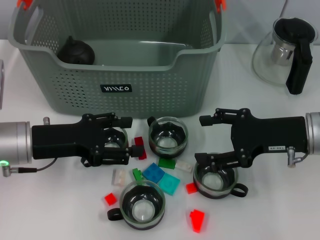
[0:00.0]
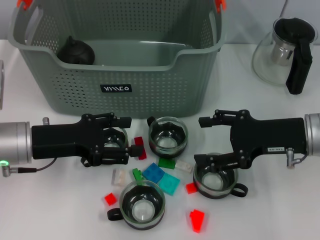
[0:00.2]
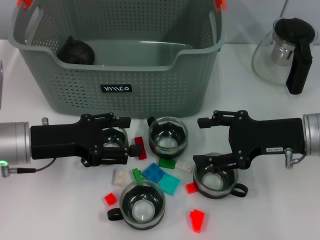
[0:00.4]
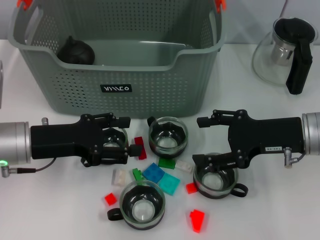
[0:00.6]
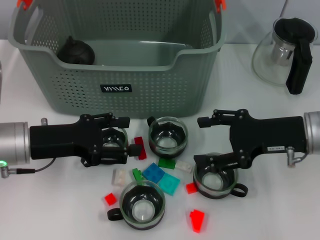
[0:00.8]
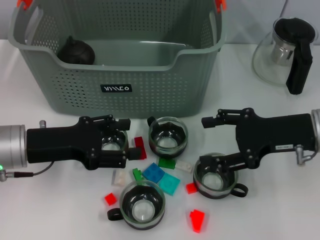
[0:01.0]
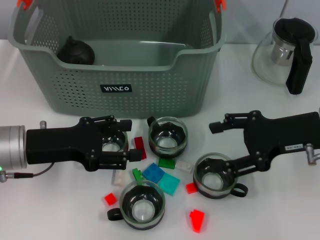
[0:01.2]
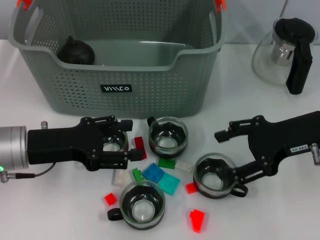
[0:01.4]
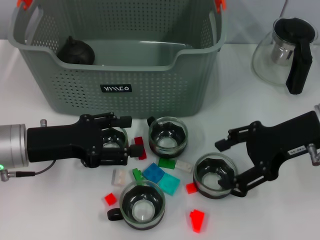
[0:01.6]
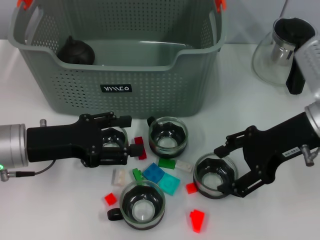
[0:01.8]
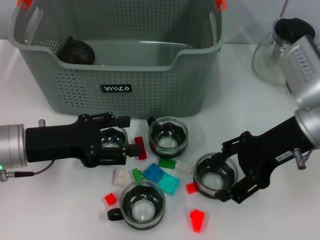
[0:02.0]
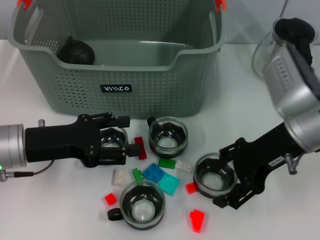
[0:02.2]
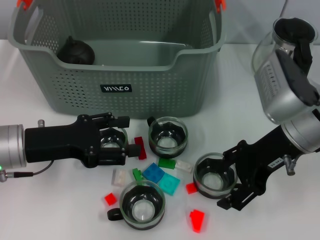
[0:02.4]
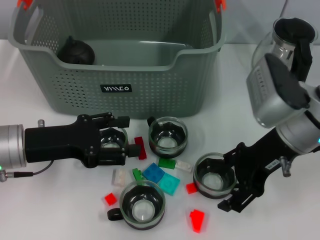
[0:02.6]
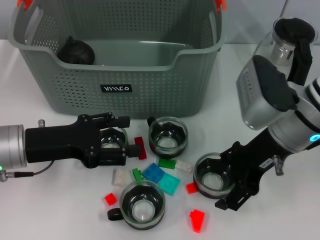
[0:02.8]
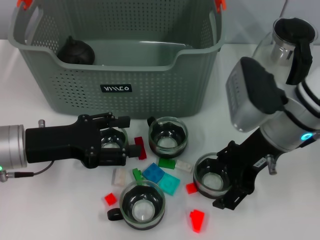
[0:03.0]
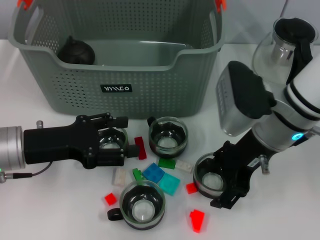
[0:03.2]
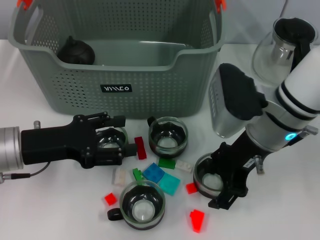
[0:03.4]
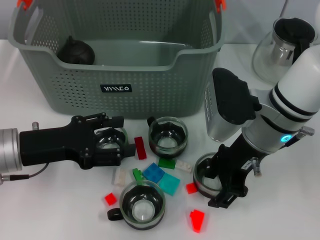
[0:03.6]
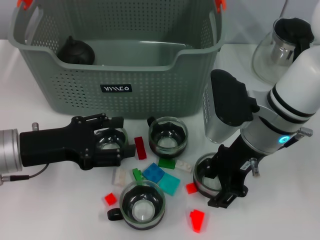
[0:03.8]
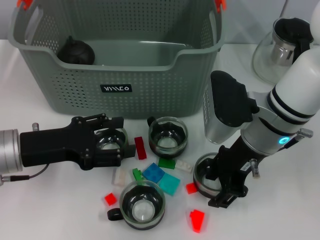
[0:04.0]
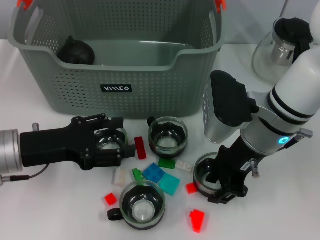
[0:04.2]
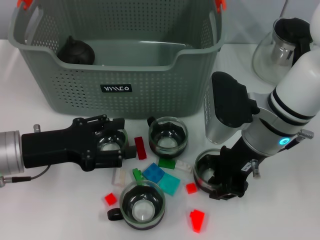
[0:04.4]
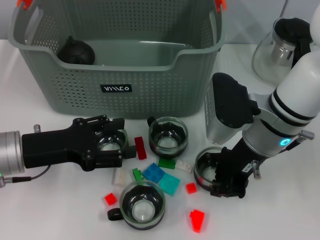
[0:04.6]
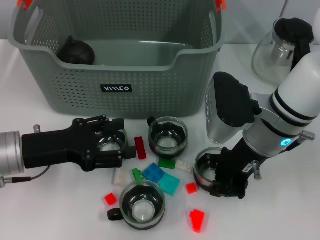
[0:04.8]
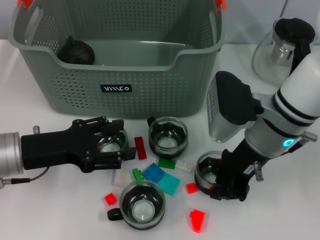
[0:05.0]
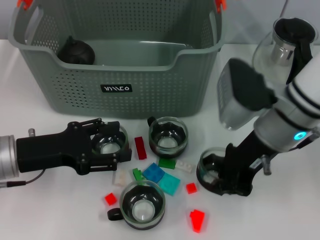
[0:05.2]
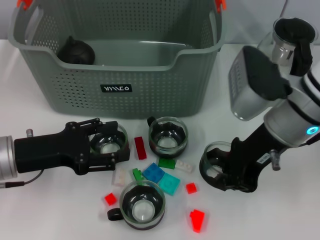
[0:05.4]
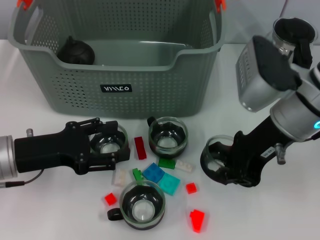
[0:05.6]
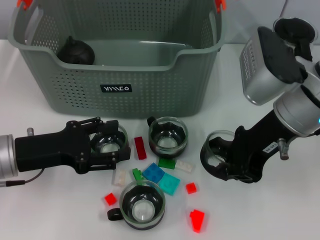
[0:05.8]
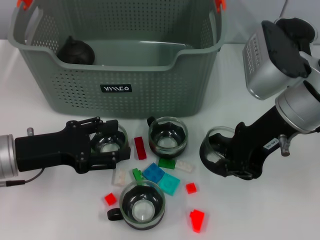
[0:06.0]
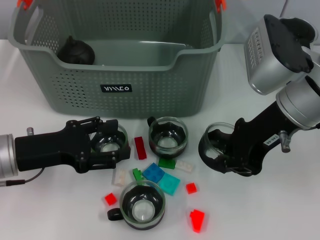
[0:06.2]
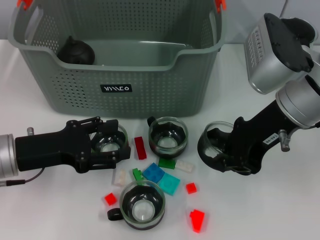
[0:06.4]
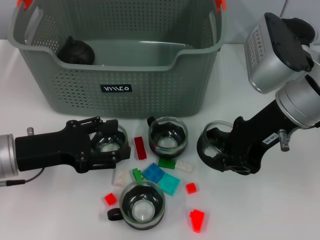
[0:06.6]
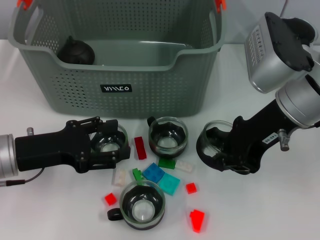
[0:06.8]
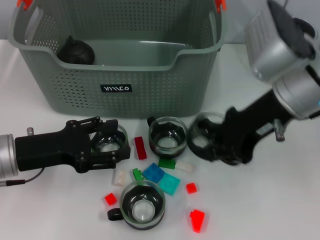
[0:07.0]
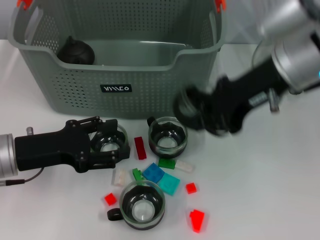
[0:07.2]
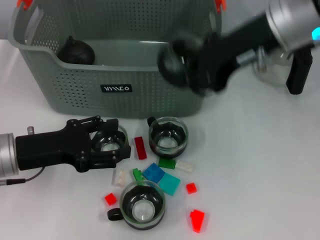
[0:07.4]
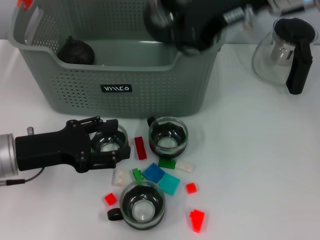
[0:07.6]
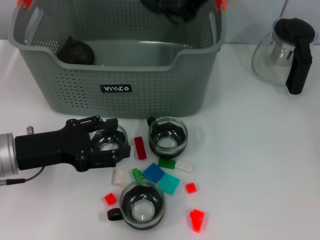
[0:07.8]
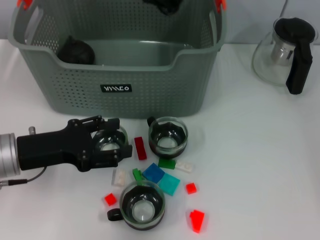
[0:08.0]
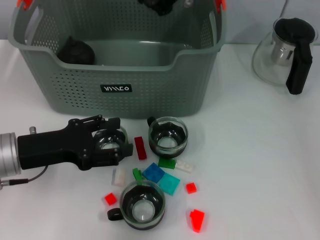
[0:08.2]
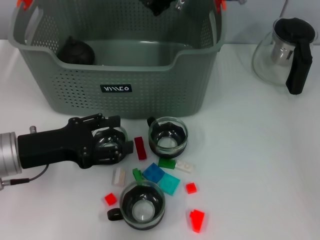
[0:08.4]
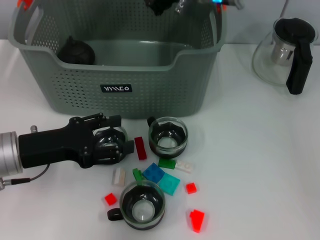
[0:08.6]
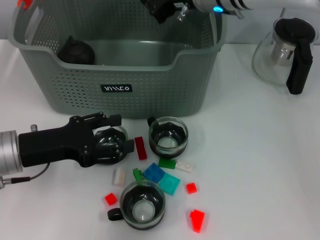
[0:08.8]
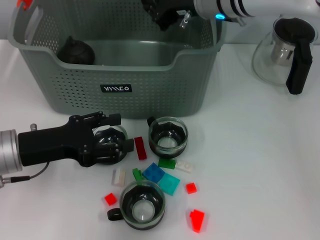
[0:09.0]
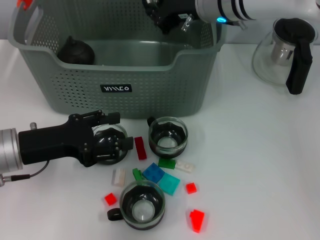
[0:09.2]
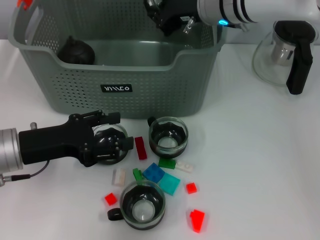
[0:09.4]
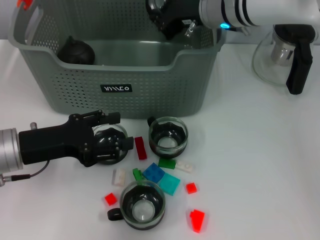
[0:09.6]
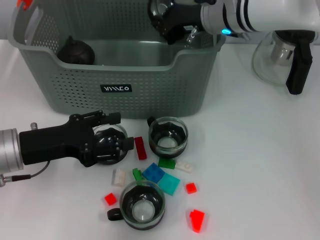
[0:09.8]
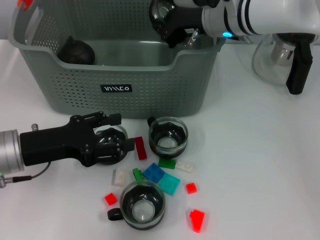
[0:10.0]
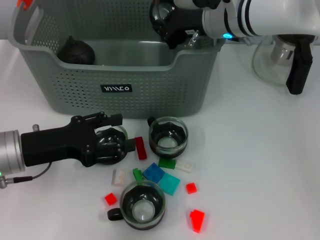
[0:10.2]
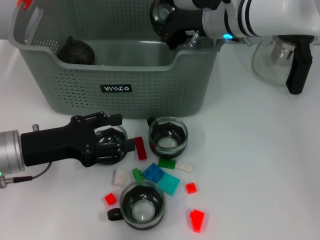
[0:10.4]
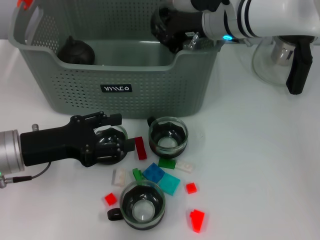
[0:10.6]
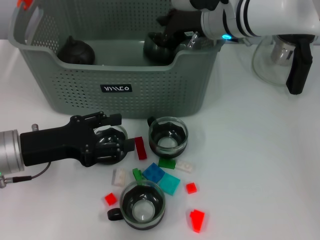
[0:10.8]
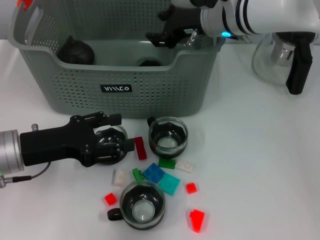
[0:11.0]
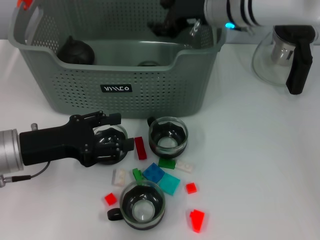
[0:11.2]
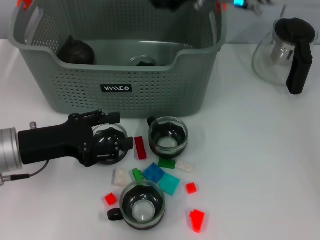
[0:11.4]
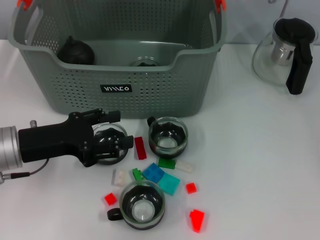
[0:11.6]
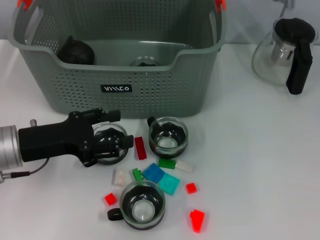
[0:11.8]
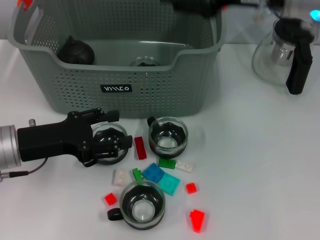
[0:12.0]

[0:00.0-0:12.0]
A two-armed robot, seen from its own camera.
Task of the whole recording: pick up the teacup on the table and place it into the storage bin, pick up the block on the table and place it into the storage bin.
Step, 0:00.0 to 0:04.8: Grasp the cup with right gripper.
Step, 0:05.0 to 0:10.8: Place the cup in the storage box with right gripper.
0:01.6 to 0:03.0: The right gripper heads to the left, covering roughly 5 cm.
0:03.0 to 0:04.4: The right gripper closes its fingers.
0:04.4 to 0:06.0: The right gripper heads upward, covering about 5 cm, and closes its fingers.
0:06.0 to 0:07.6: The right gripper goes some 10 cm upward.
0:07.6 to 0:09.0: The right gripper travels downward, forward and to the left by some 15 cm.
0:09.0 to 0:10.4: There are only small adjustments of the grippers.
0:10.4 to 0:12.0: The right gripper is displaced to the right, upward and backward by some 15 cm, and opens its fingers.

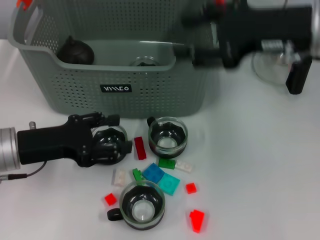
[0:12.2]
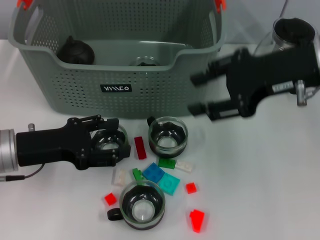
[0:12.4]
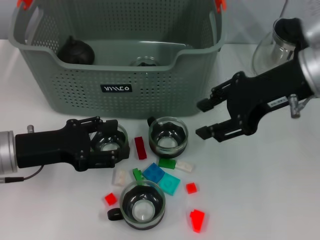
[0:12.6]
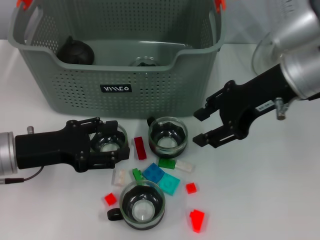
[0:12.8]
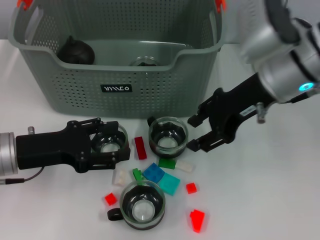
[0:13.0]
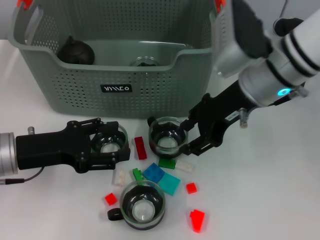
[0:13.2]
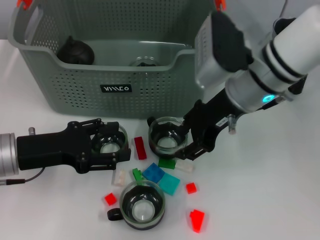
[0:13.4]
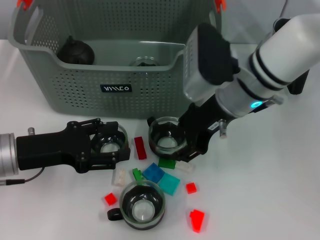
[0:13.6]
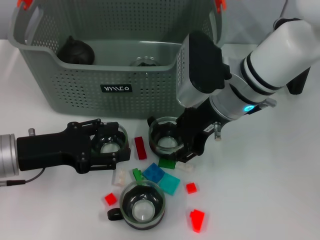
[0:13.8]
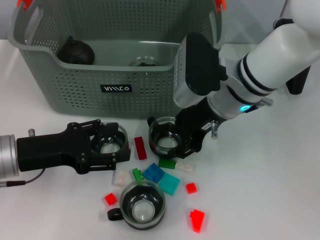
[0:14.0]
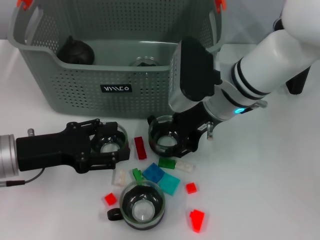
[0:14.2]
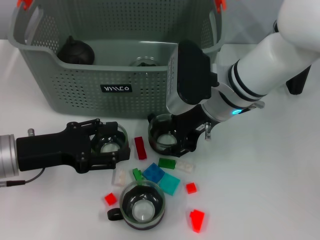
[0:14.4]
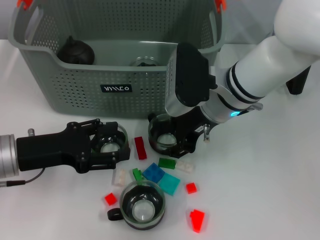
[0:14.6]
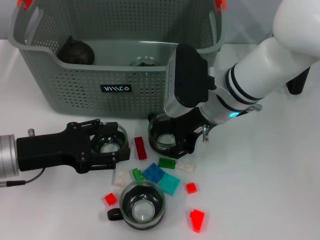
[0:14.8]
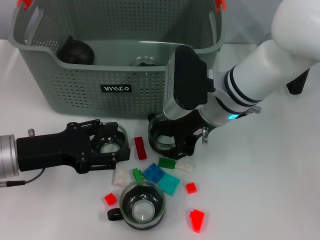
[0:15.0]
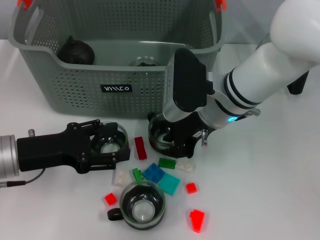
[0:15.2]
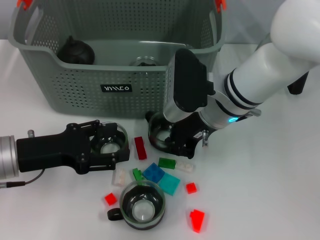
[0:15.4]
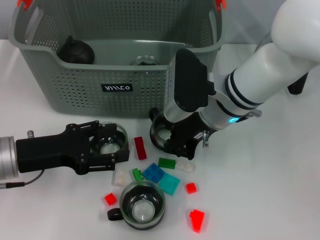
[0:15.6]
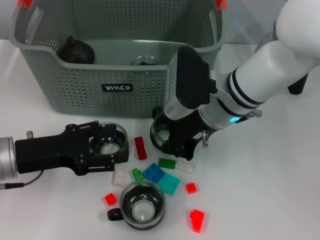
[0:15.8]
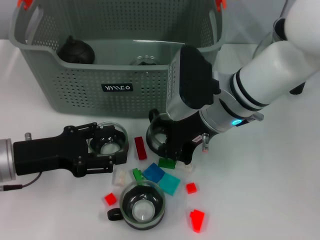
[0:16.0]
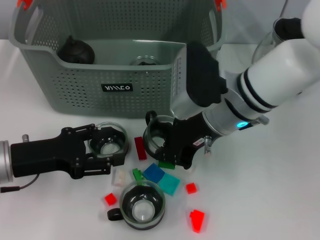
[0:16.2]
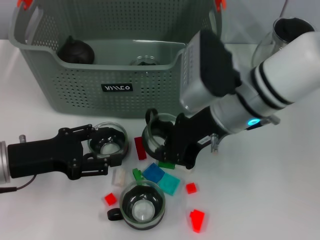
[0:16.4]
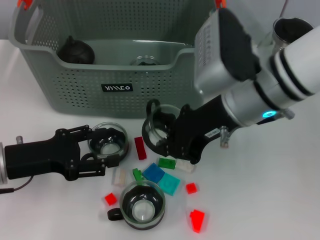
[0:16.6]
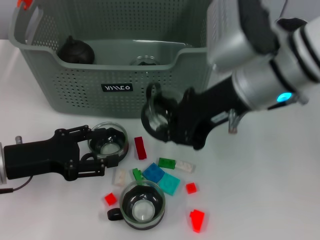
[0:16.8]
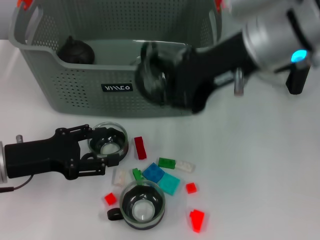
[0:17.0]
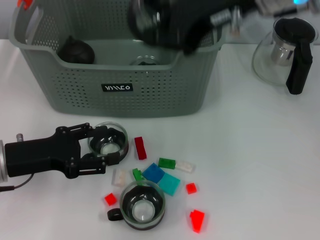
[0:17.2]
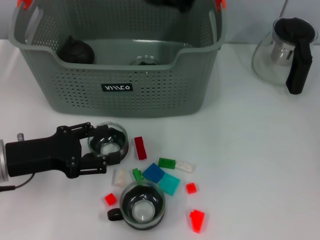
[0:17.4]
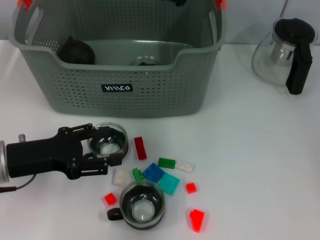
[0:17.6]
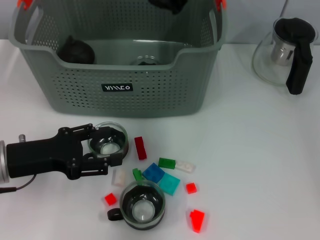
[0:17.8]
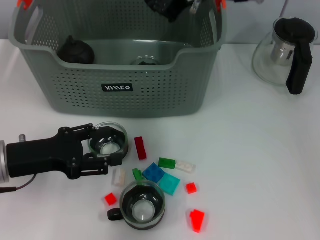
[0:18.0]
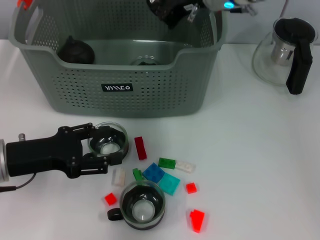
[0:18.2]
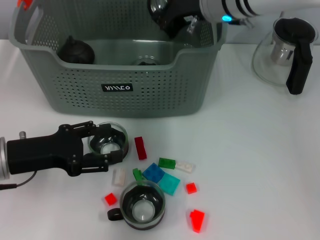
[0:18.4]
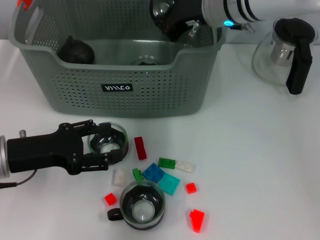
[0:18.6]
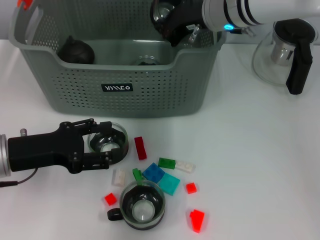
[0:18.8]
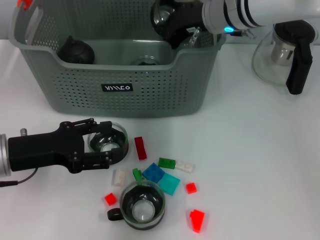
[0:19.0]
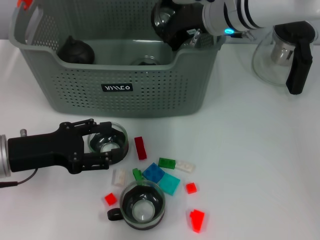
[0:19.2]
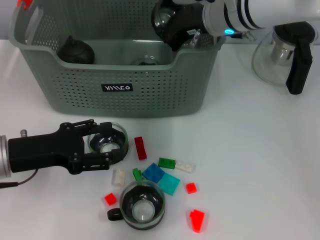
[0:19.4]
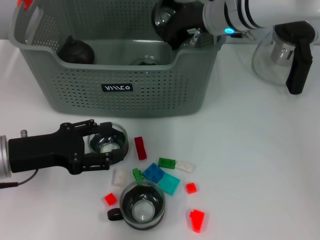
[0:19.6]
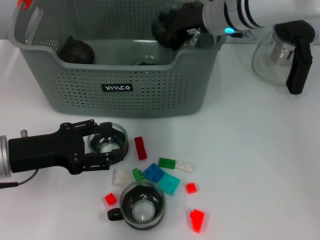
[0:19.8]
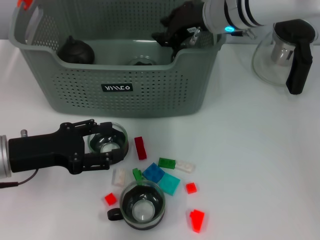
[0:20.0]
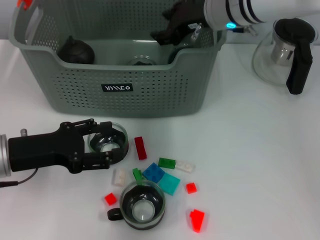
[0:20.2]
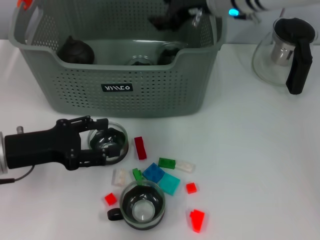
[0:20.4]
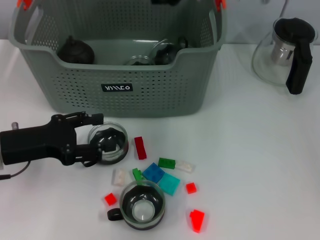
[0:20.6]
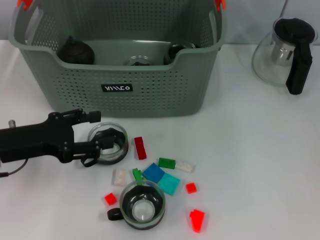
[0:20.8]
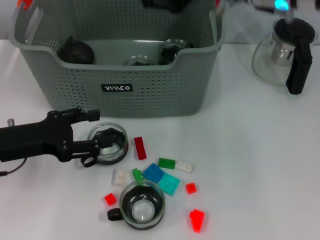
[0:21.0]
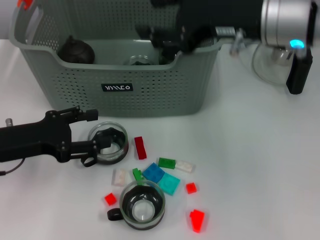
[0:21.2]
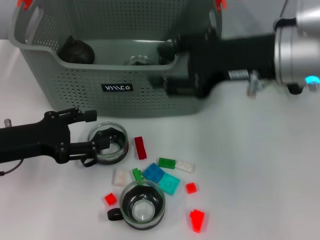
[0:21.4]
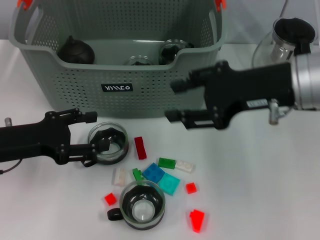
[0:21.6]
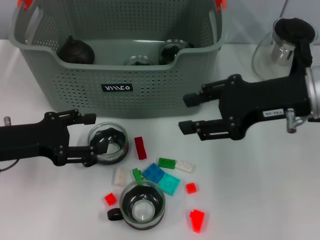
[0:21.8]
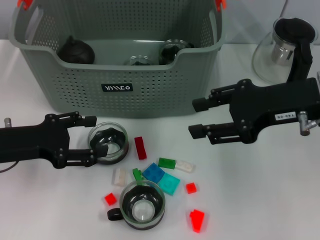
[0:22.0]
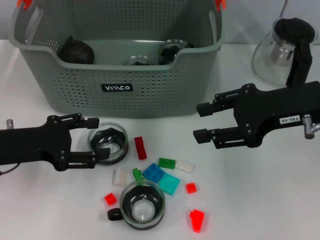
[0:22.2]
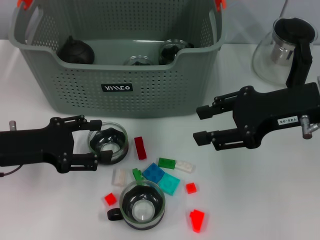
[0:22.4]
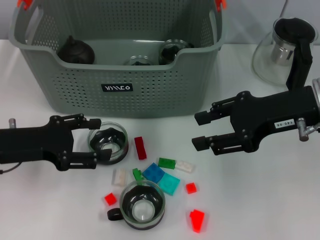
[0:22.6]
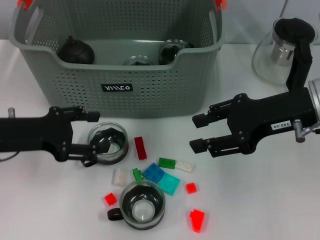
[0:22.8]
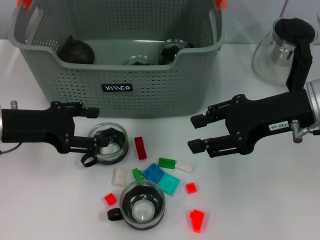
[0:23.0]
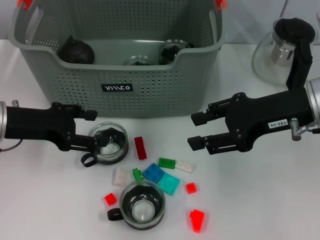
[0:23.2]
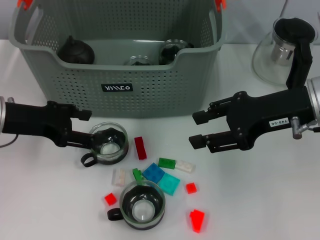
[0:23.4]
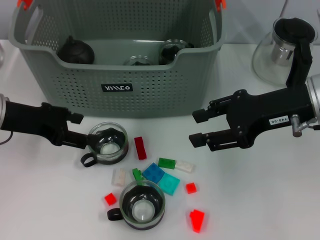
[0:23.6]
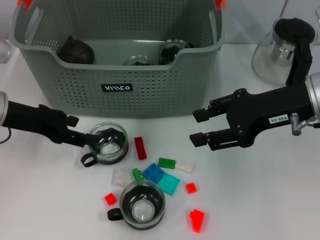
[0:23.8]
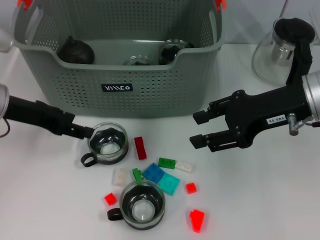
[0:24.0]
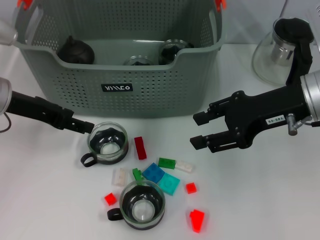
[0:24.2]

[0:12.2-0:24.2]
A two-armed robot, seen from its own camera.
Task of the whole recording: pick up the teacup on the table and place it into the storage bin, pick up the block on the table and place it into the storage bin.
Step, 0:12.2 to 0:15.6: Grasp the cup with right gripper.
Step, 0:15.8 to 0:19.8: Place the cup in the storage box with right gripper.
0:12.2 to 0:13.8: The right gripper travels to the left and downward by some 15 cm.
0:13.8 to 0:15.2: The grippers make only small movements.
0:15.2 to 0:16.6: The right gripper goes roughly 5 cm upward, and closes up.
0:16.6 to 0:18.2: The right gripper is displaced forward by approximately 15 cm.
0:18.2 to 0:19.8: There are only small adjustments of the grippers.
0:19.8 to 0:21.2: The right gripper heads backward, upward and to the right, covering some 15 cm, and opens up.
0:21.2 to 0:22.6: The right gripper travels to the right and downward by some 10 cm.
0:22.6 to 0:24.2: The left gripper moves forward and upward, approximately 10 cm.
